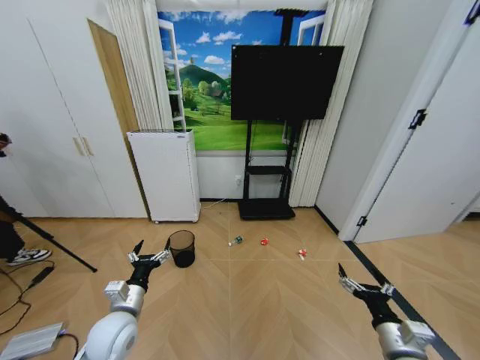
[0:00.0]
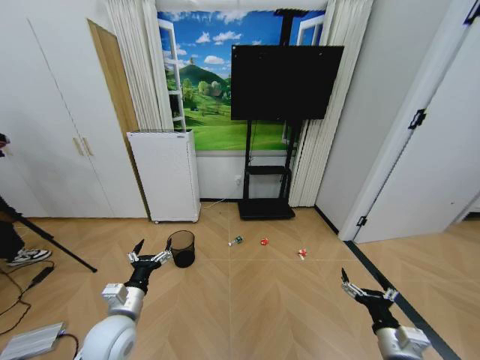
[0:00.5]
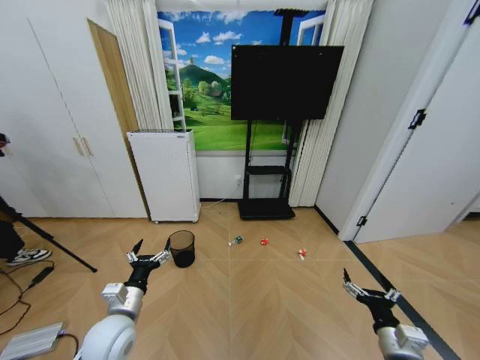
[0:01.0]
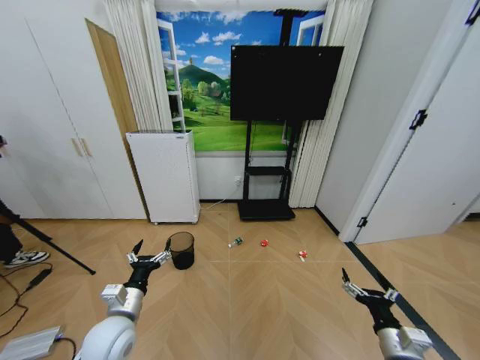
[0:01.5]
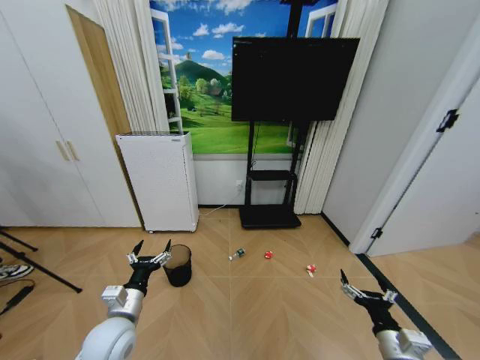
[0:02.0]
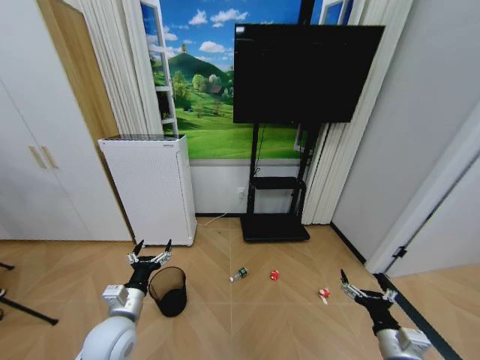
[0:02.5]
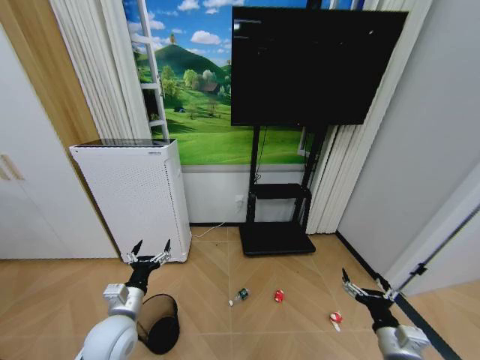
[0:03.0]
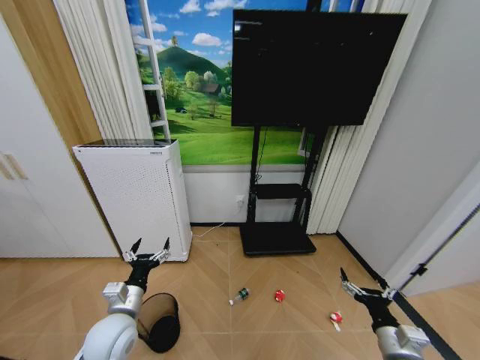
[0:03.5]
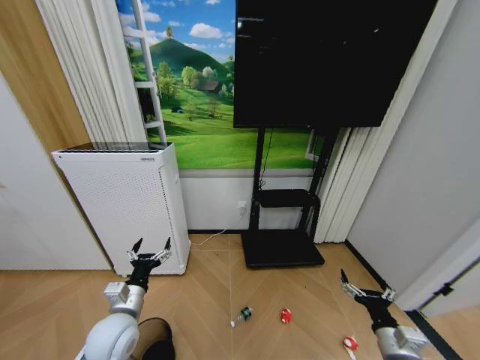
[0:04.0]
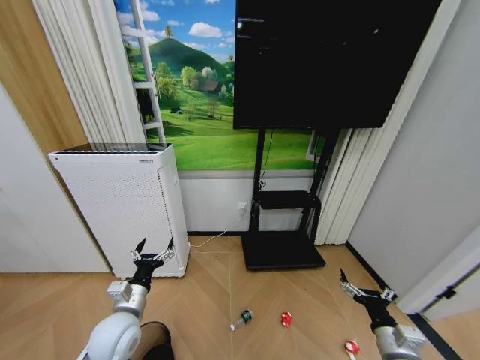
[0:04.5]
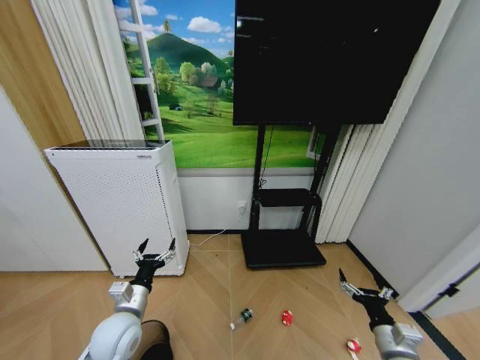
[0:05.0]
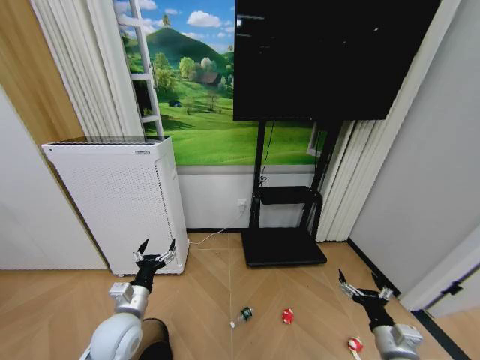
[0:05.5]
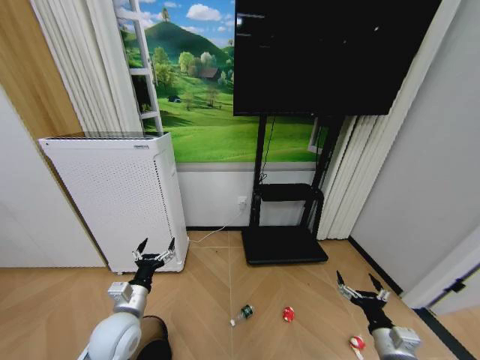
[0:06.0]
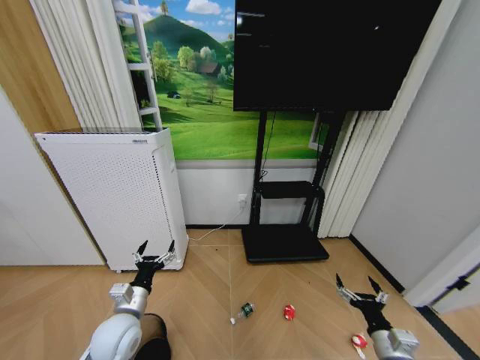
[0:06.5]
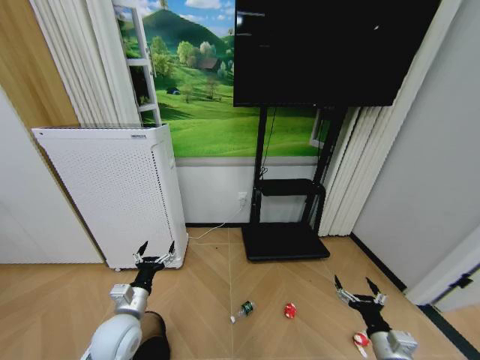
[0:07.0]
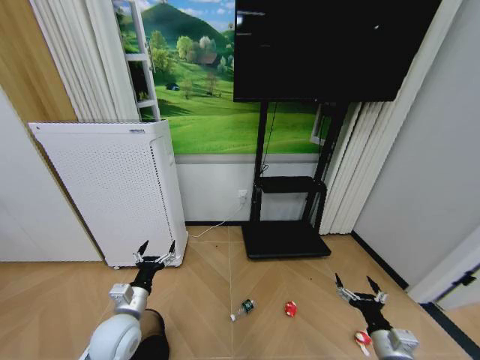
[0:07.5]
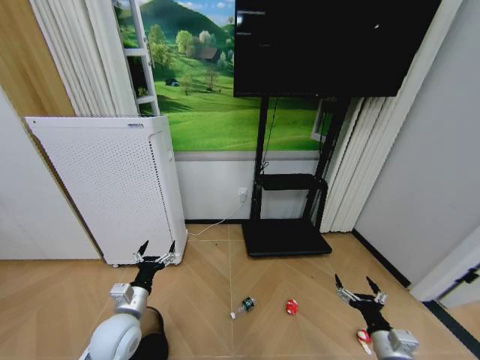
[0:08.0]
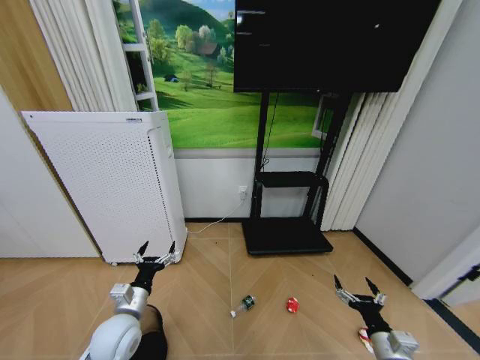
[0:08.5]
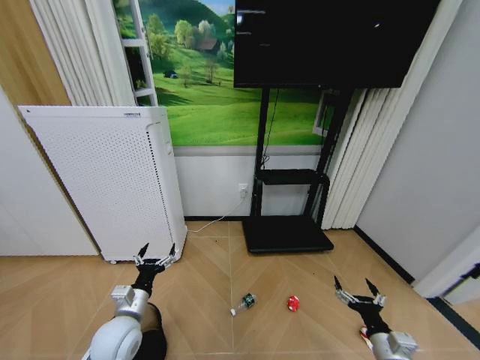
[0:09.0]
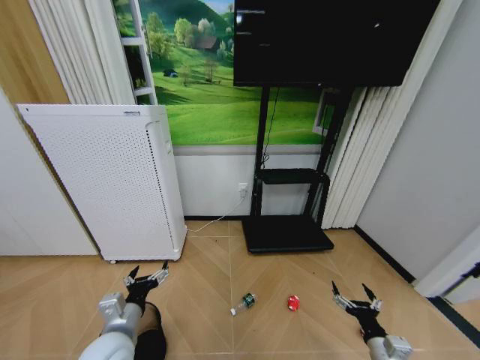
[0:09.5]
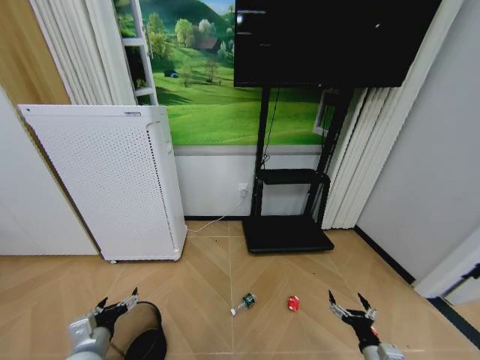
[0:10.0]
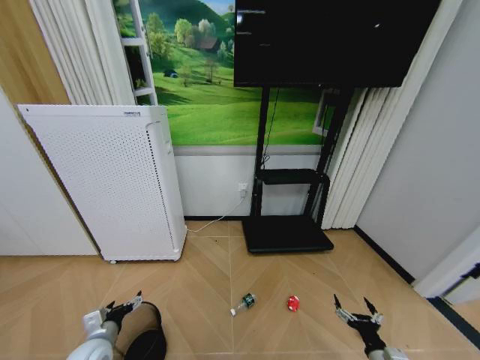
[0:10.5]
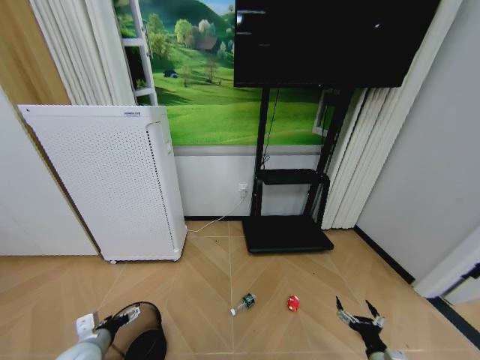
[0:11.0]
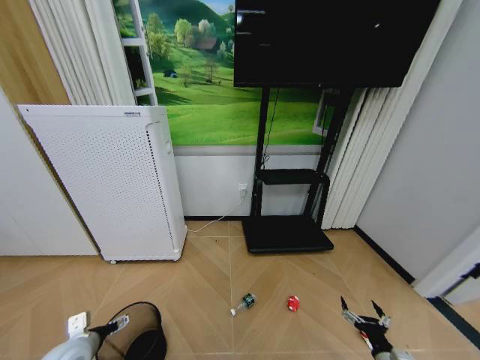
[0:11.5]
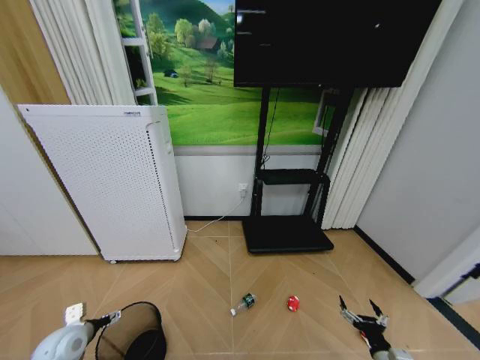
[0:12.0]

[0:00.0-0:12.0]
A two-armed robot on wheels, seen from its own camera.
Task of the whole recording: Pick up the trash bin and place the garbage on the floor into it.
0:04.0 to 0:06.0: The grippers make only small movements.
0:06.0 to 0:08.0: Both grippers stay about where they are.
0:08.0 to 0:10.0: The left gripper heads to the left and backward, covering approximately 10 cm. The right gripper shifts approximately 5 cm downward.
0:10.0 to 0:12.0: The left gripper is displaced to the left and forward by about 10 cm.

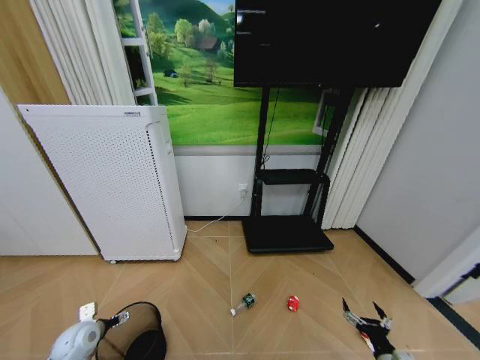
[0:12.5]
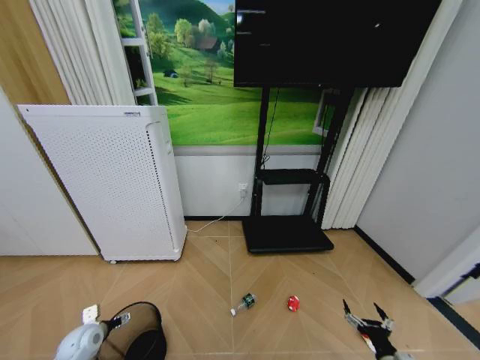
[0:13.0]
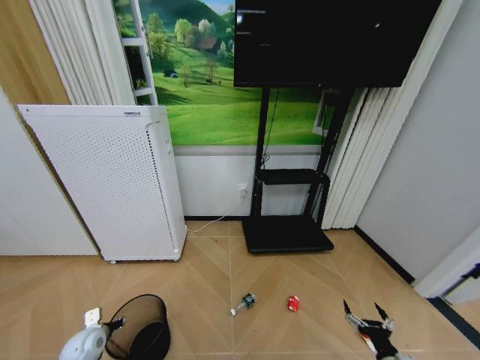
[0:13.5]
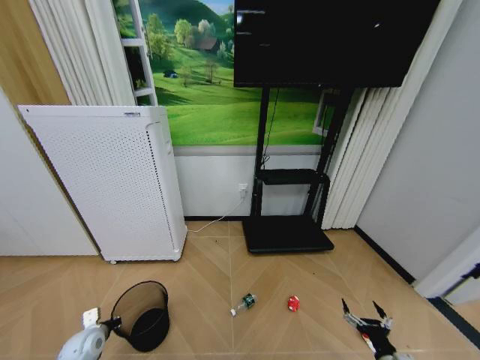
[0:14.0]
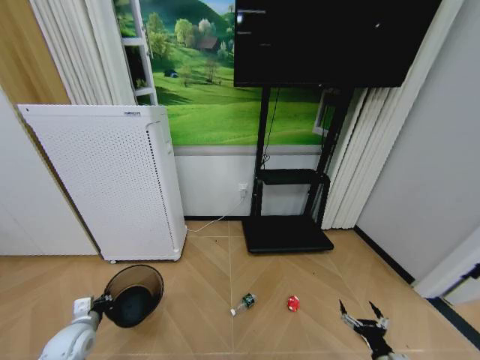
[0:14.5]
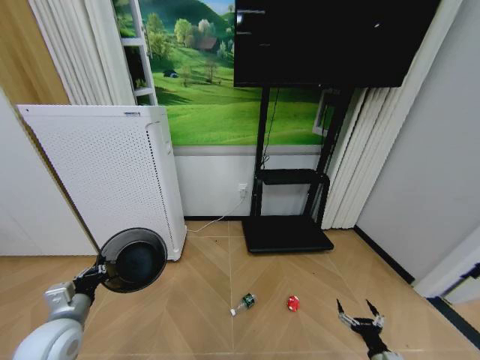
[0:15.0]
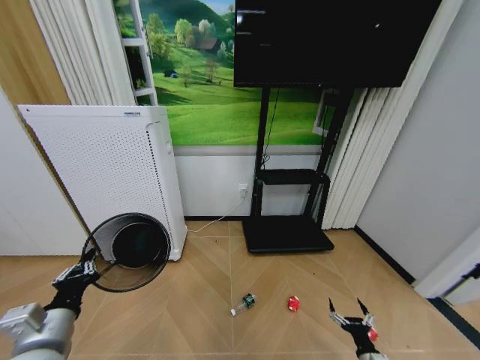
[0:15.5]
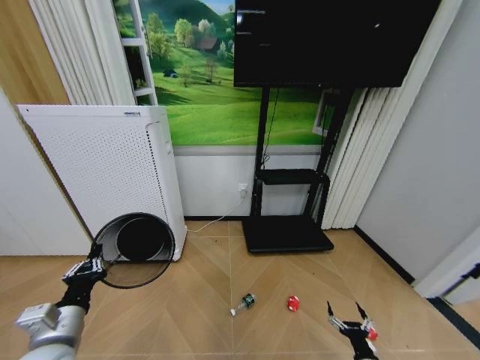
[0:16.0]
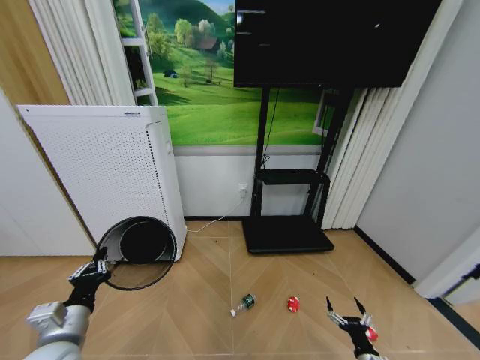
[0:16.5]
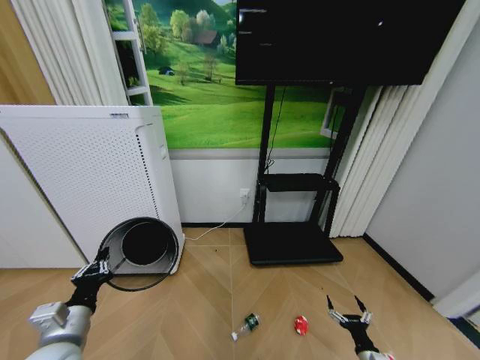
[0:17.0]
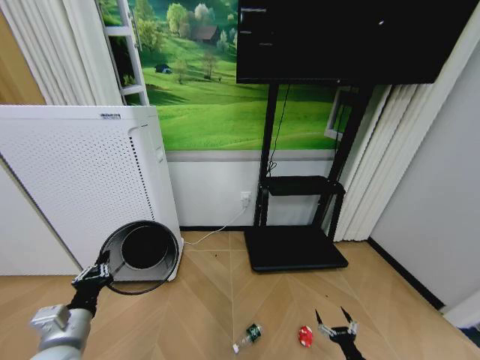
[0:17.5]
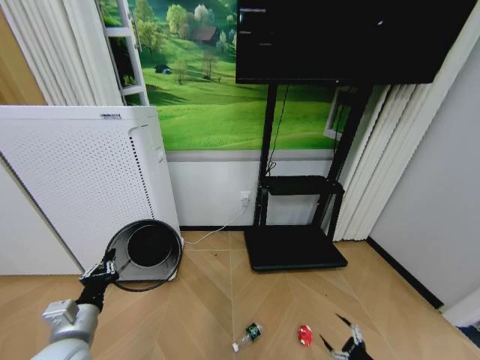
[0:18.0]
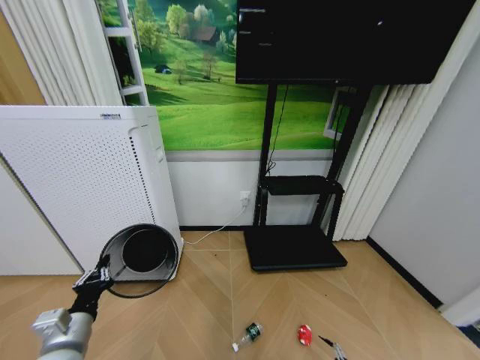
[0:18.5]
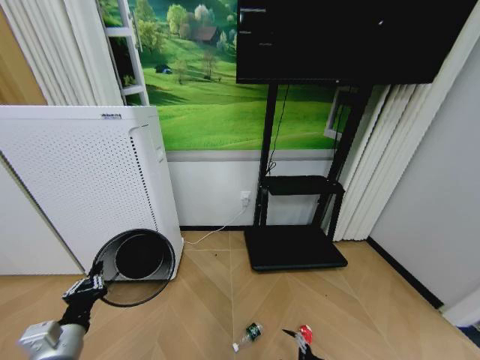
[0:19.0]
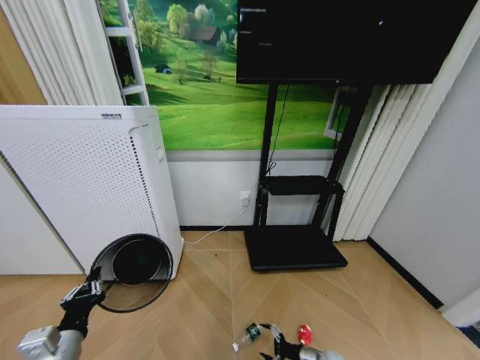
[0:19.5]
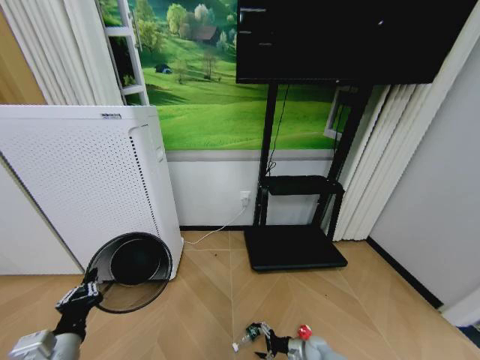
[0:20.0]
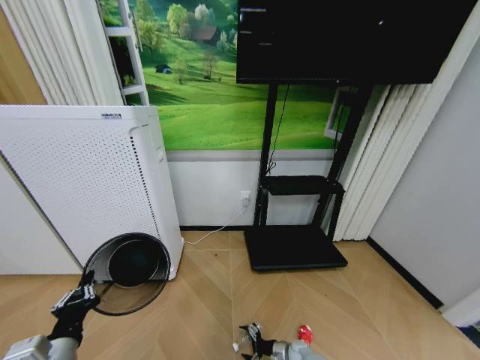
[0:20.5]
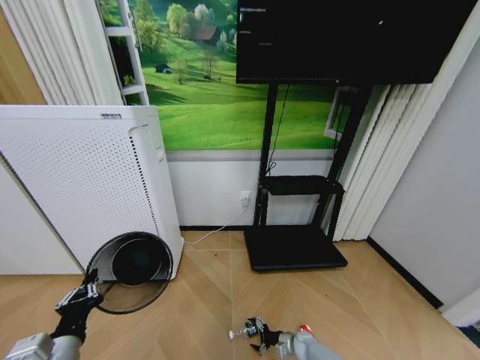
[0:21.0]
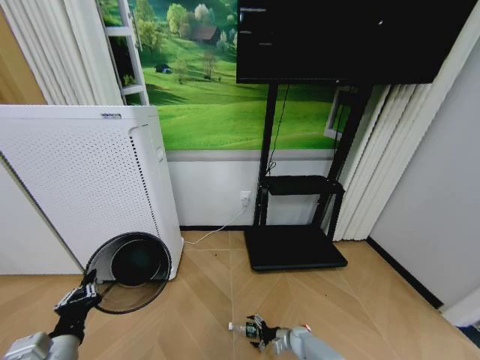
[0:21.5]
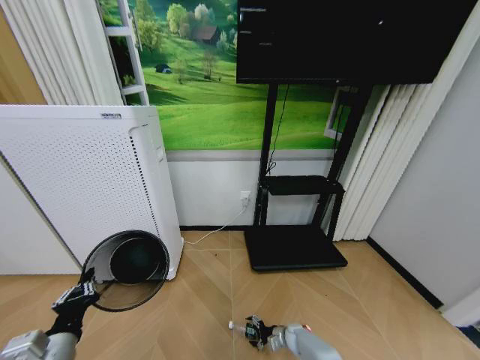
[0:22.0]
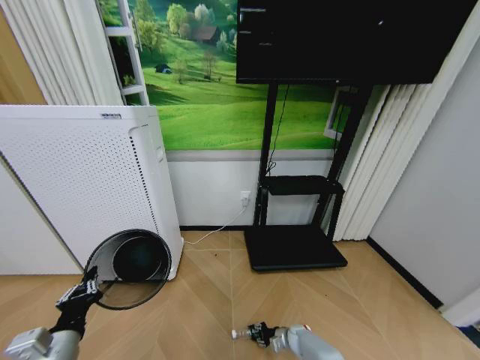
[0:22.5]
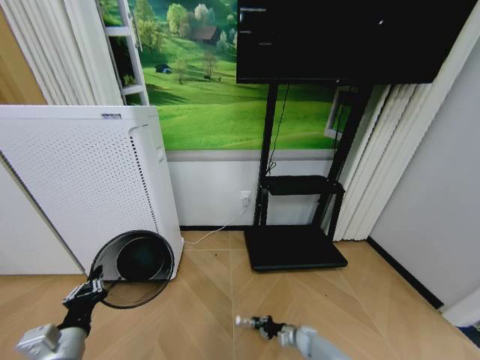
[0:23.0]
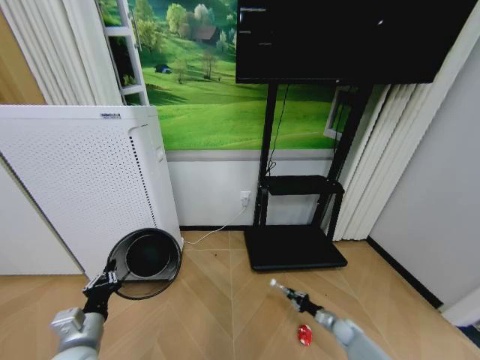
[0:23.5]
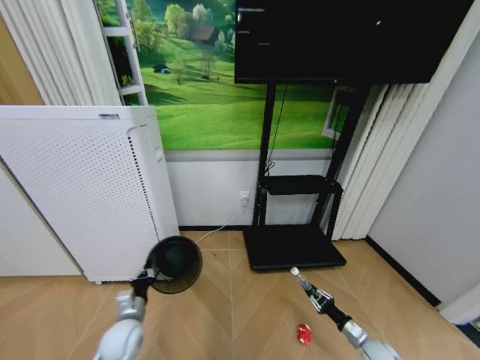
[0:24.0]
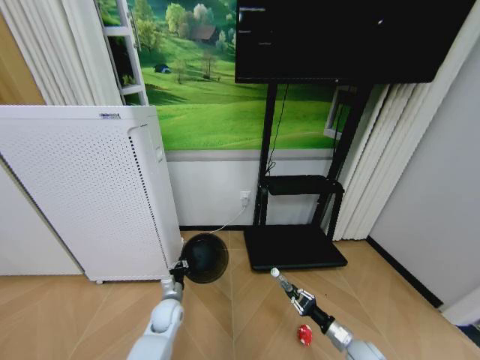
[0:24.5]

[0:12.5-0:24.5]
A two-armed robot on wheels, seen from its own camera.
Task of the whole recording: Pick up the trash bin and place the garbage on the floor into it.
0:12.5 to 0:14.5: The left gripper closes up.
0:14.5 to 0:16.5: The right gripper is displaced downward by approximately 5 cm. The left gripper travels upward, to the right and backward by some 20 cm.
0:16.5 to 0:18.5: The right gripper shifts some 5 cm to the right.
0:18.5 to 0:20.5: The right gripper heads to the left, forward and downward, covering about 30 cm.
0:20.5 to 0:22.5: The right gripper heads forward, covering approximately 5 cm, and closes its fingers.
0:22.5 to 0:24.5: The left gripper goes about 30 cm forward, downward and to the right, while the right gripper goes some 20 cm upward, to the right and backward.

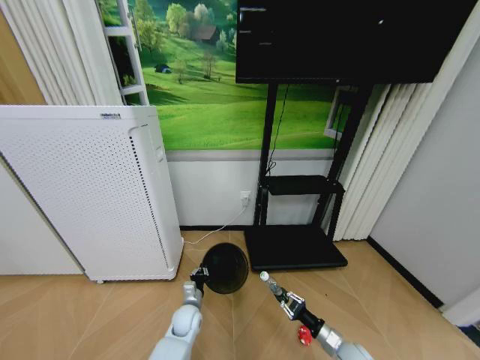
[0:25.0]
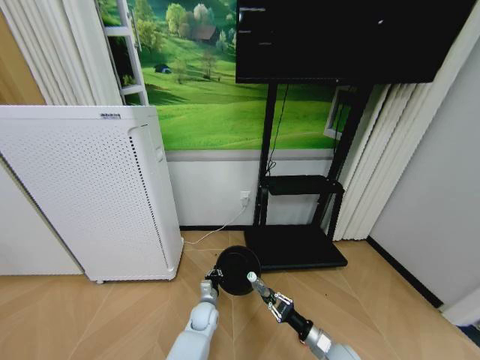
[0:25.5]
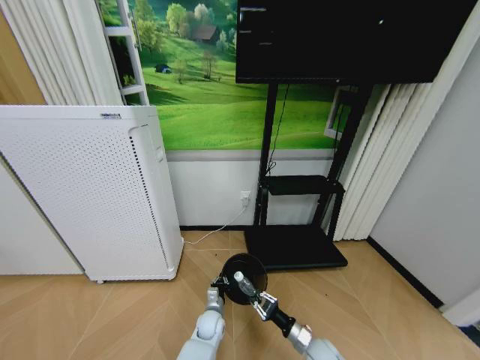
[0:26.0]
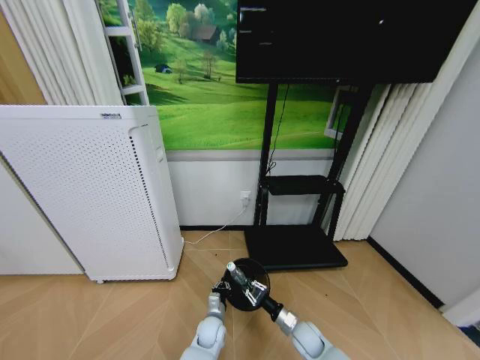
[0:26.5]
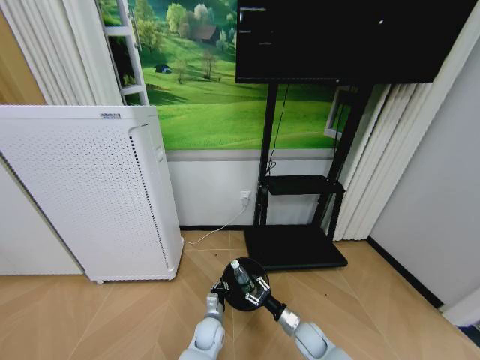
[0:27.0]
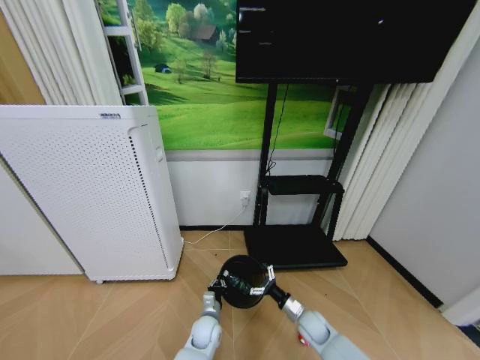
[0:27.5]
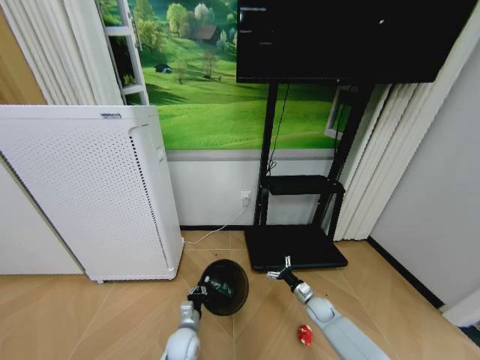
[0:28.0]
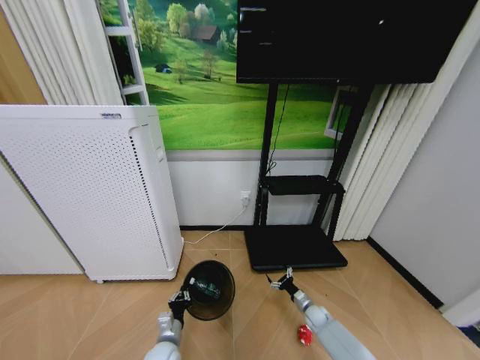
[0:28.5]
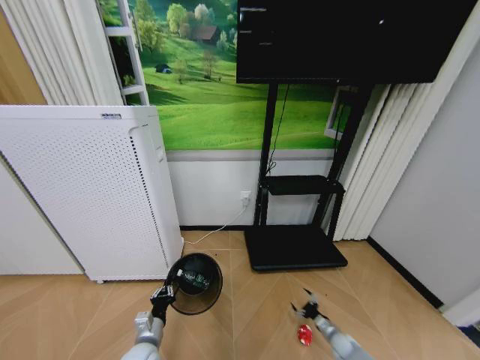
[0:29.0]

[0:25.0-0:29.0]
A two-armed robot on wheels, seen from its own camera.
Task of the whole recording: Pick up the trash bin and place the garbage on the floor into it.
0:25.0 to 0:27.0: The right gripper goes roughly 10 cm to the left and forward, while the left gripper travels to the right by approximately 10 cm.
0:27.0 to 0:29.0: The left gripper shifts roughly 20 cm to the left, backward and upward; the right gripper heads to the right and downward, covering roughly 20 cm, and opens.
